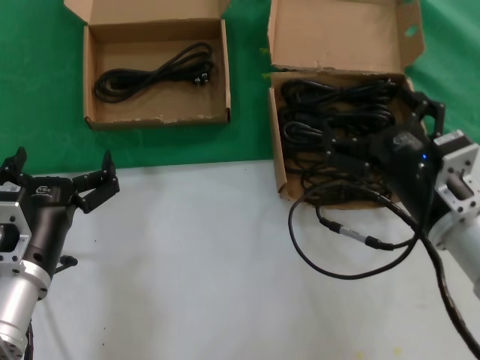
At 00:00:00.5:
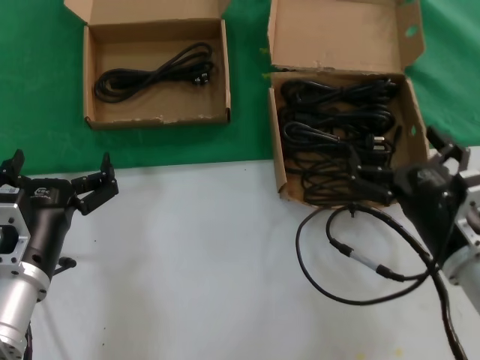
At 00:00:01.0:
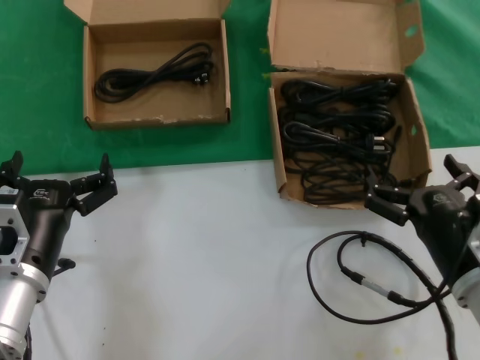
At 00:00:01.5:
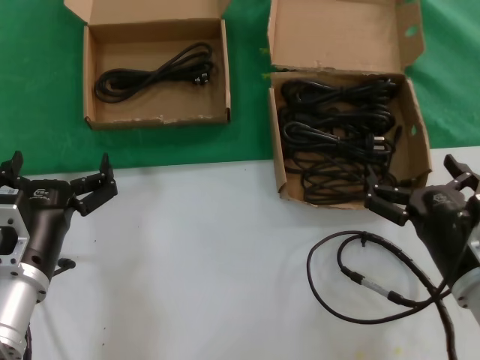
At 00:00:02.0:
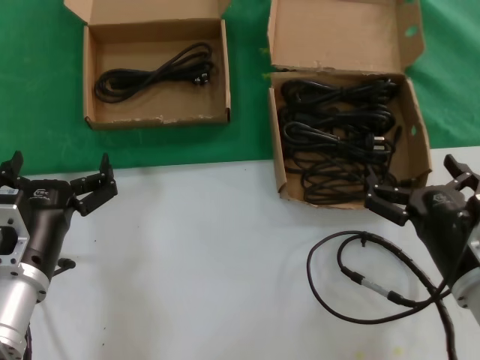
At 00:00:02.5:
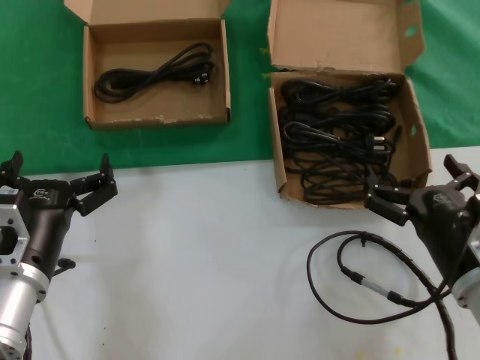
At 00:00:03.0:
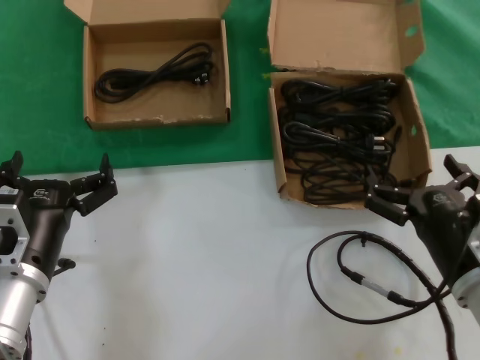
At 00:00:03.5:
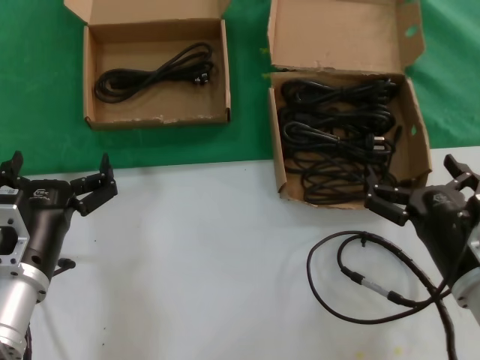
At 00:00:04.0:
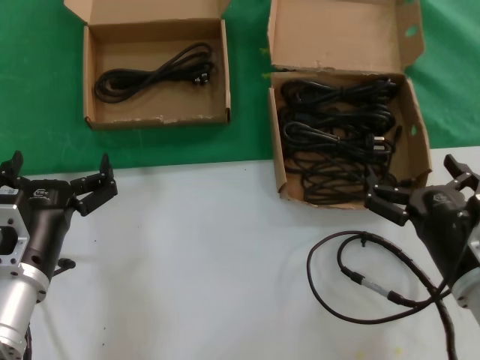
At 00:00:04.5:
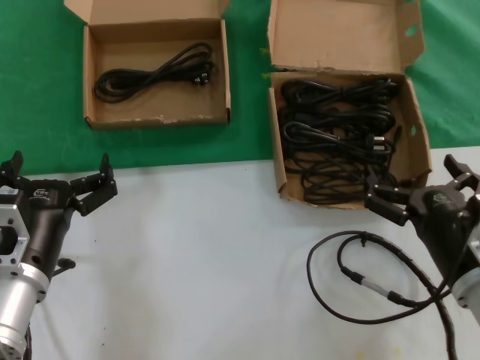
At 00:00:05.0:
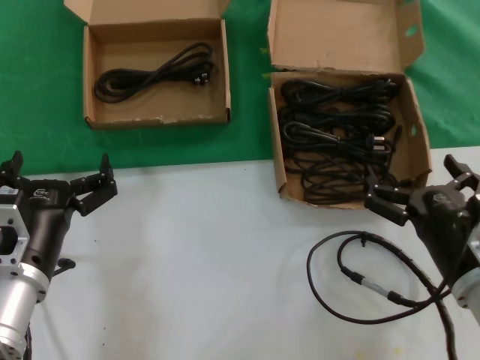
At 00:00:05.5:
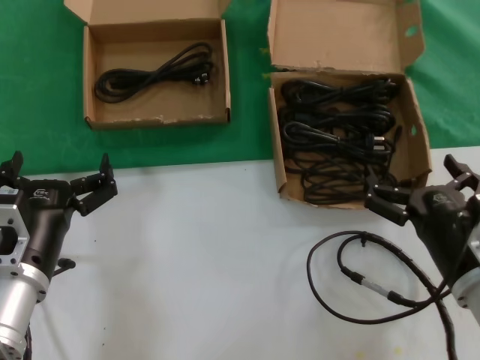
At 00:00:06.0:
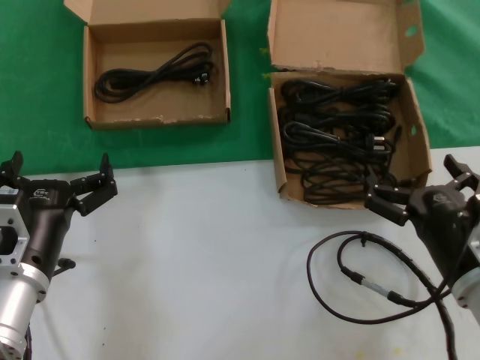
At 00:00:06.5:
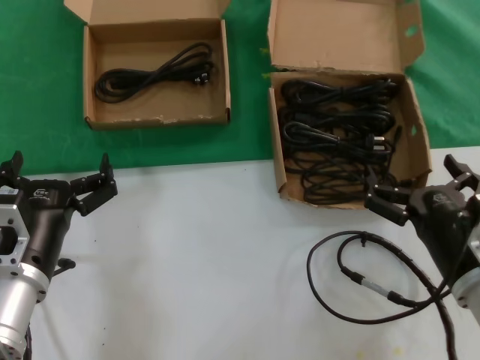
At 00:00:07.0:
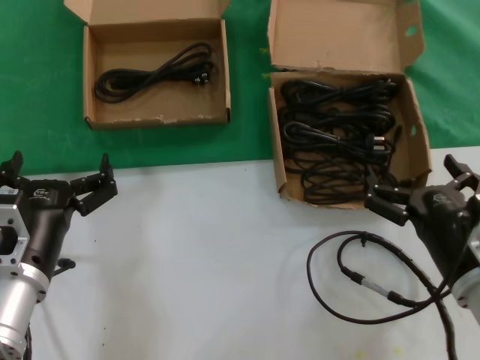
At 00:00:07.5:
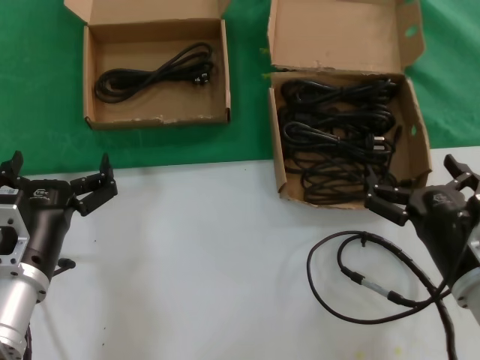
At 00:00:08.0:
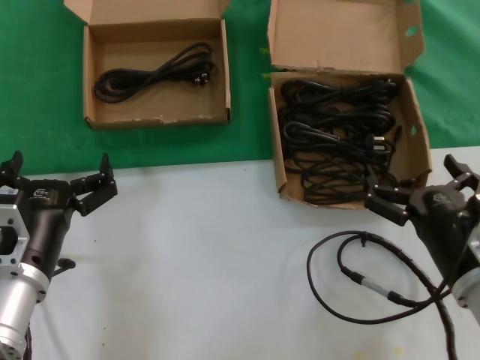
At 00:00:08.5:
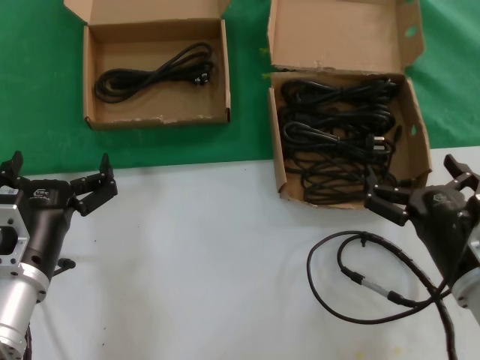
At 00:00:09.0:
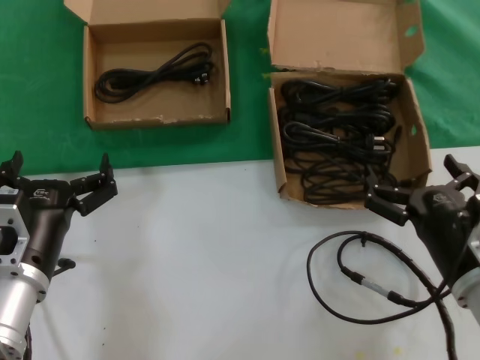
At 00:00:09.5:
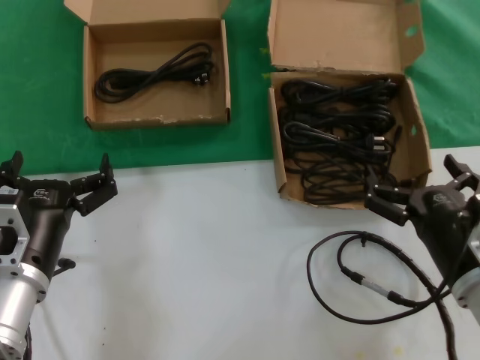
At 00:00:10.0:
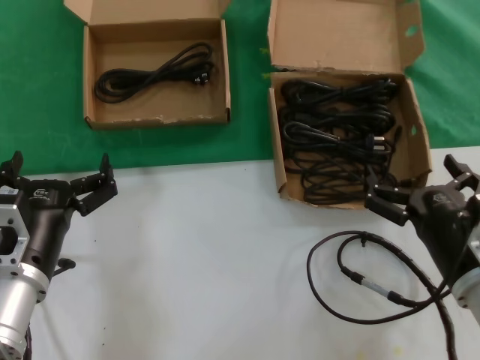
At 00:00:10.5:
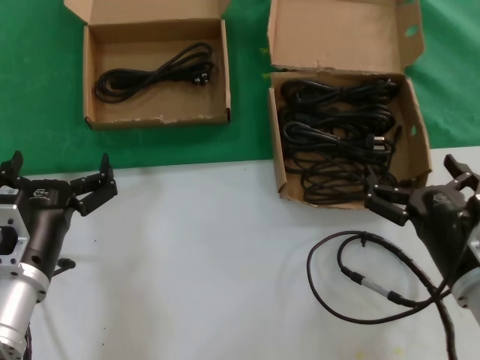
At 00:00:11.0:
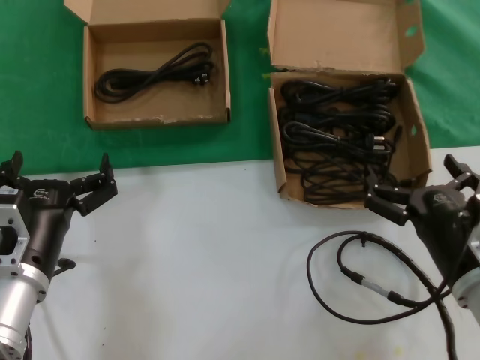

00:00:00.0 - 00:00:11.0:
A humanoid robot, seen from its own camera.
Task of the whole recording: take the parts from the box containing them and put them into an empty box.
00:00:00.0 - 00:00:02.0: The right hand goes some 5 cm downward.
00:00:02.0 - 00:00:11.0: Both hands stay put.
